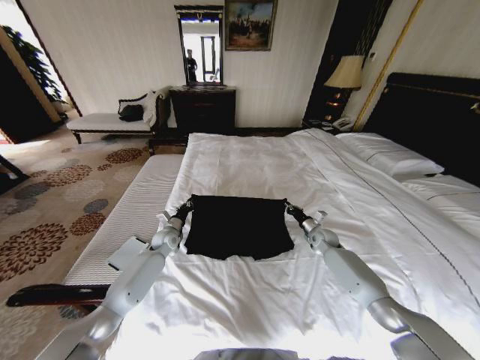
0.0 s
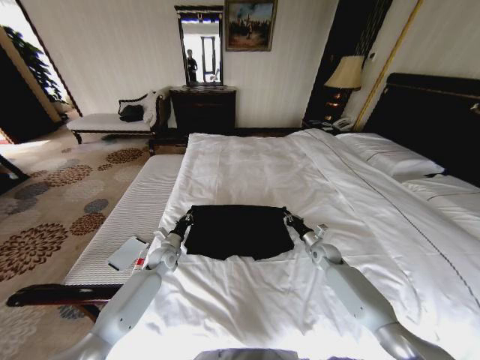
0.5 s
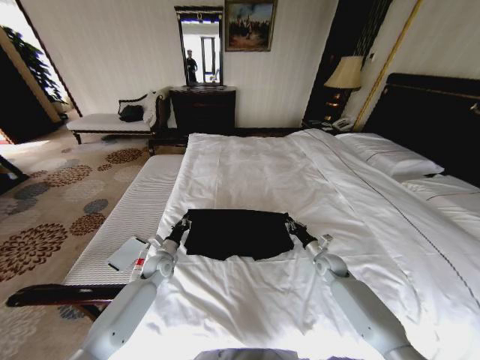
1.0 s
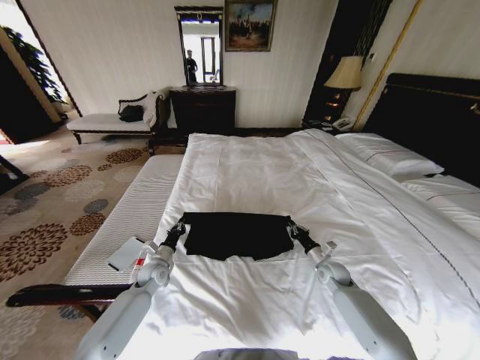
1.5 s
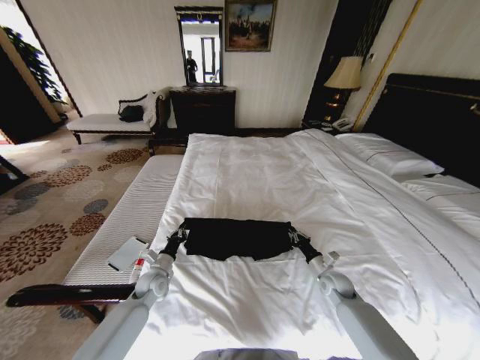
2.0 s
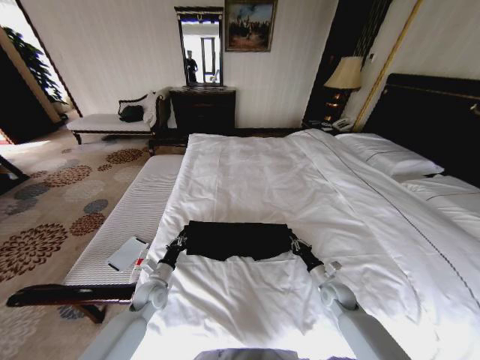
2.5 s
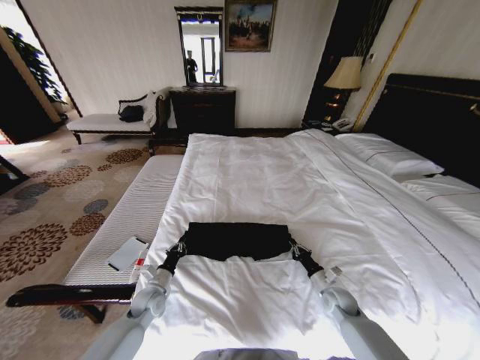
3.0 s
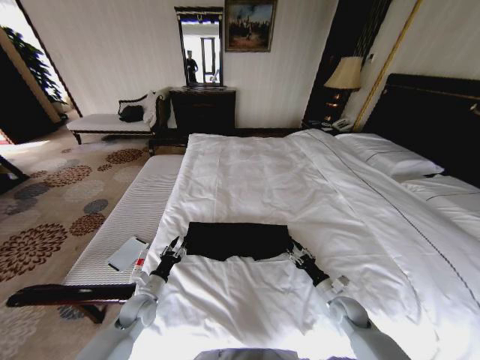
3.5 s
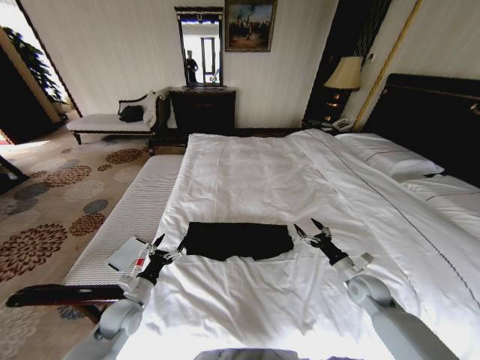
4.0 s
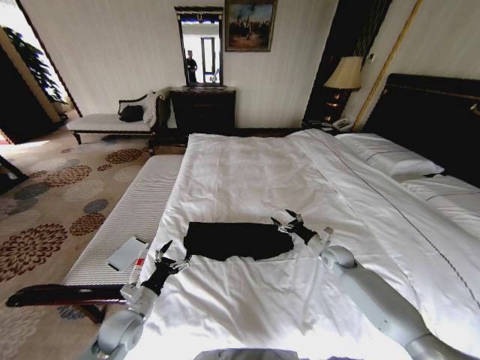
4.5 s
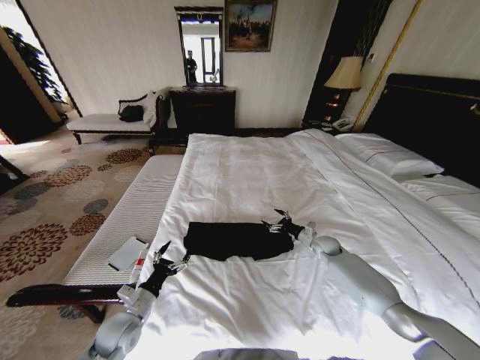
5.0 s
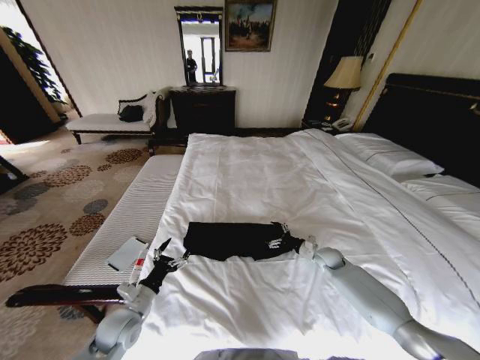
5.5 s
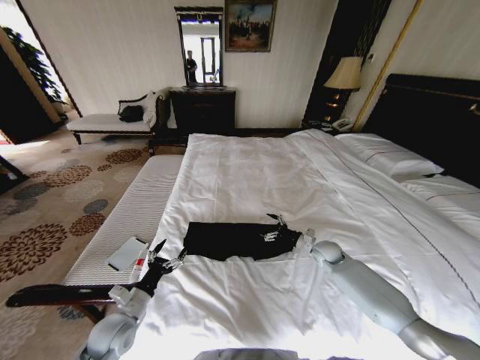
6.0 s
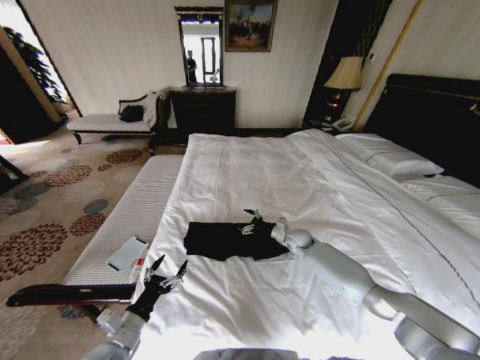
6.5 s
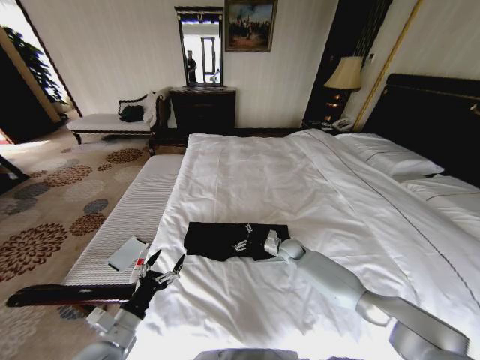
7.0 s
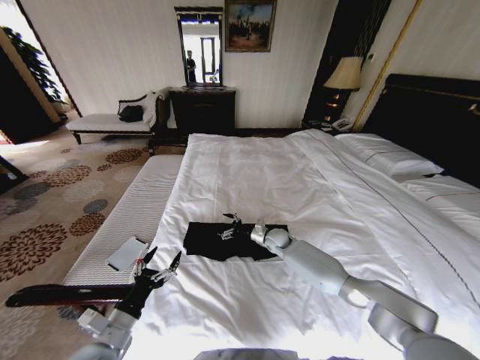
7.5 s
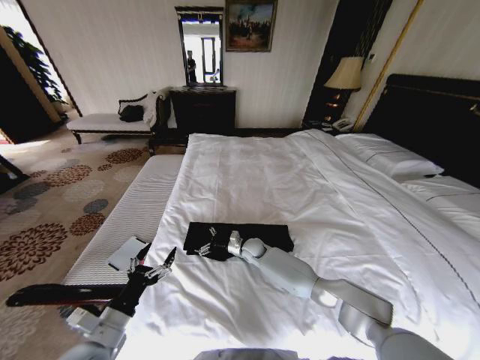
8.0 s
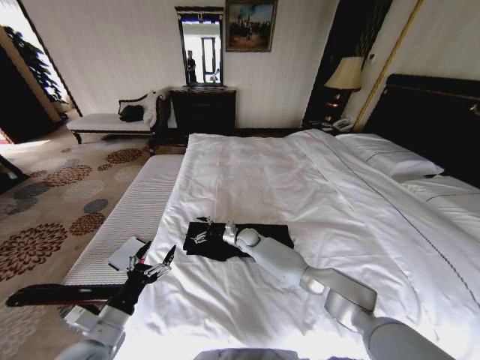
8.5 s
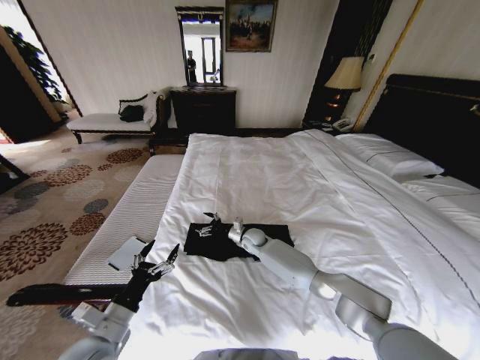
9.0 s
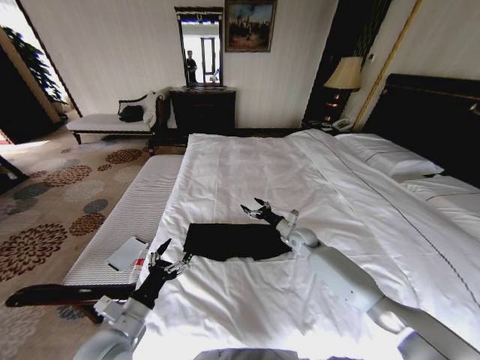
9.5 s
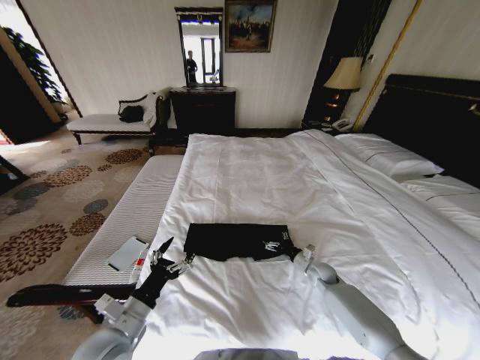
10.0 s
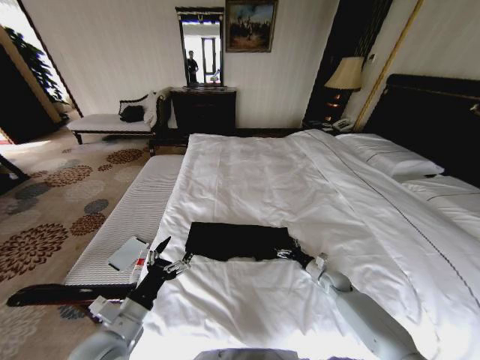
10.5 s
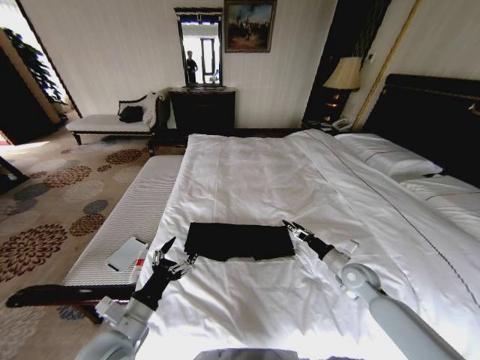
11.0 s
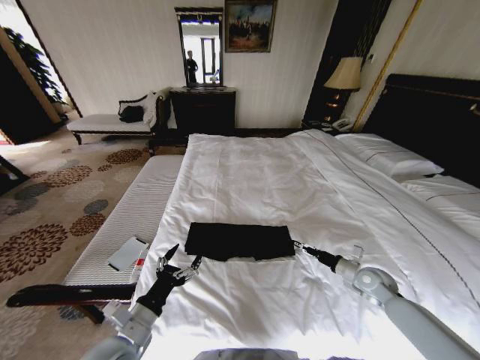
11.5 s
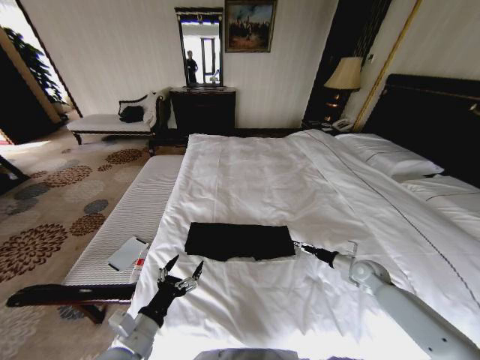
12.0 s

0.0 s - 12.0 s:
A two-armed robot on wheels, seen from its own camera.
Task of the whole recording: Fold the clothes on the bed.
0.0 s - 2.0 s: The grippers both shift backward by some 15 cm.
2.0 s - 4.0 s: The right gripper moves upward and to the right, some 10 cm, and opens its fingers, while the left gripper moves backward, some 10 cm, and opens up.
4.0 s - 6.0 s: The right gripper shifts about 15 cm forward and to the left; the left gripper shifts by approximately 5 cm.
6.0 s - 8.0 s: The right gripper shifts about 25 cm to the left; the left gripper moves upward and backward, some 10 cm.
8.0 s - 10.0 s: The right gripper shifts approximately 25 cm to the right.
10.0 s - 12.0 s: The right gripper heads to the right and upward, covering about 15 cm.

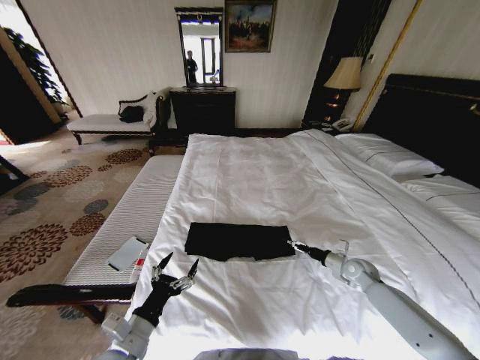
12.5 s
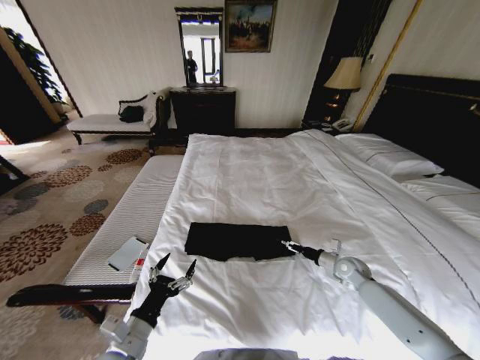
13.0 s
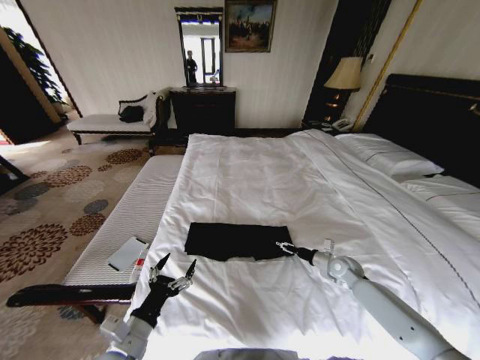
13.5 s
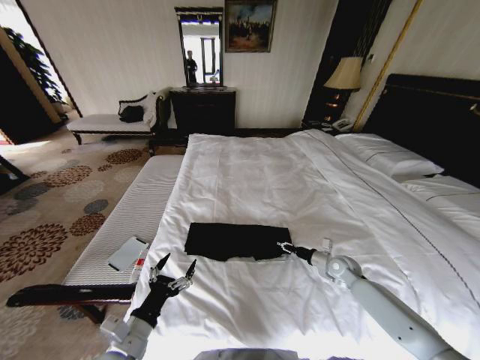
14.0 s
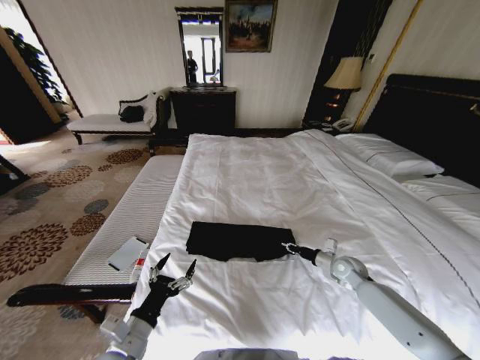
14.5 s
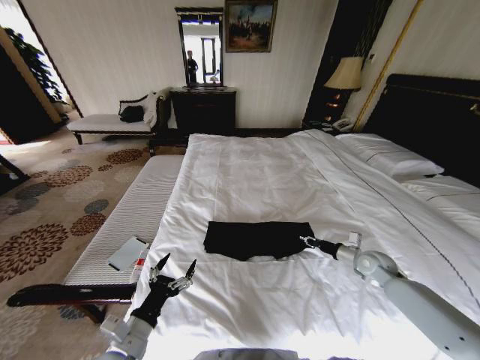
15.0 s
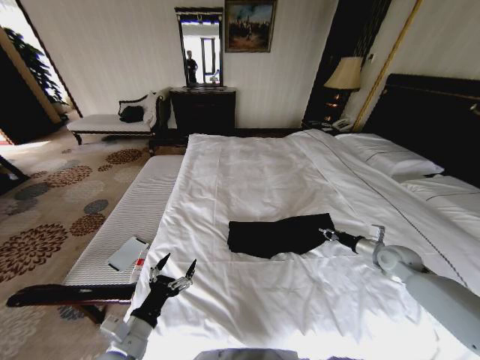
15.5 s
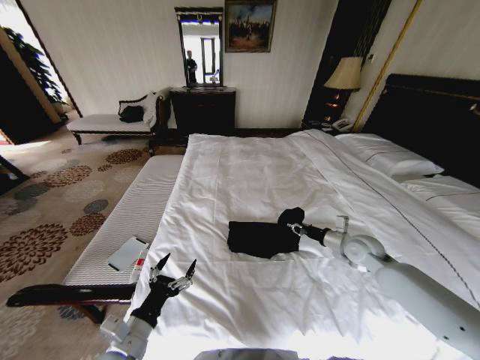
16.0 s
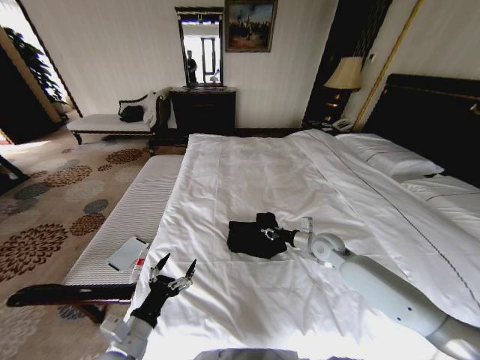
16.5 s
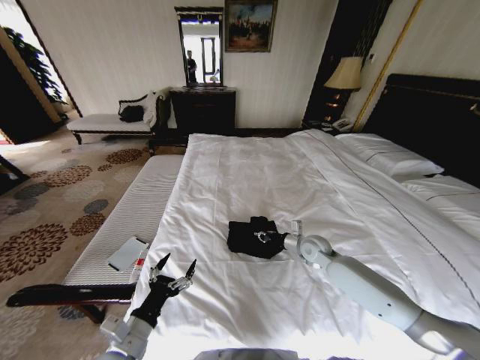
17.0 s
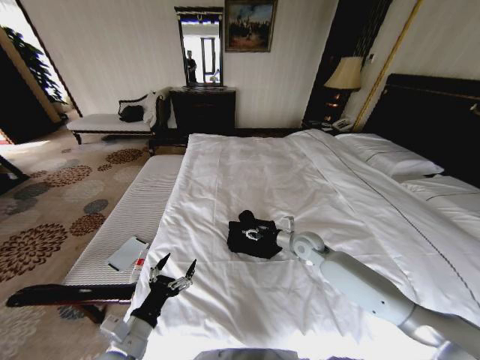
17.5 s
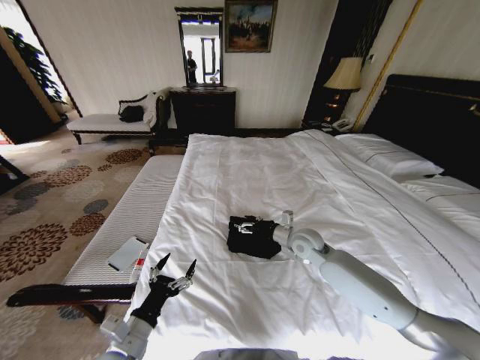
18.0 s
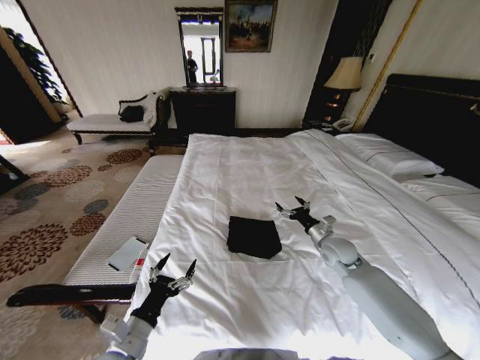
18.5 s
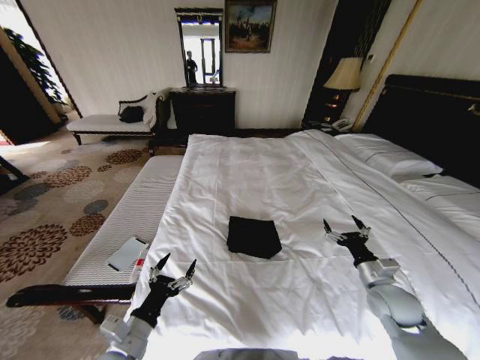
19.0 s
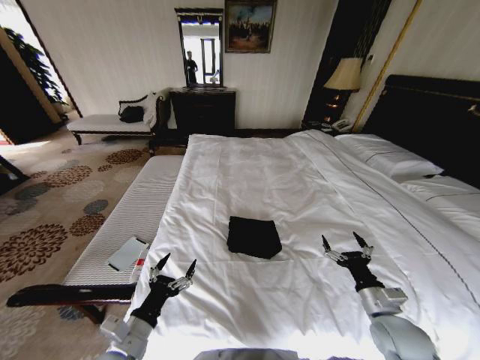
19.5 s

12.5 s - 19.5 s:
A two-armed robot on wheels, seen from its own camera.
Task of the whole recording: Fold the clothes on the bed.
12.5 s - 14.5 s: The right gripper closes up.
14.5 s - 16.0 s: The right gripper is displaced upward by approximately 10 cm.
16.0 s - 17.5 s: The right gripper travels to the left by roughly 15 cm, and opens up.
17.5 s - 19.5 s: The right gripper shifts about 25 cm backward and to the right, and opens its fingers.

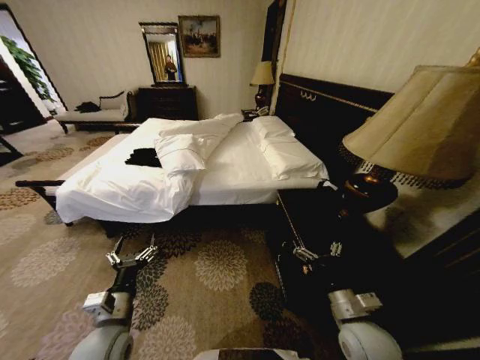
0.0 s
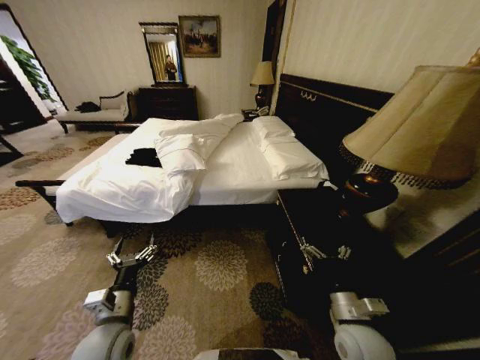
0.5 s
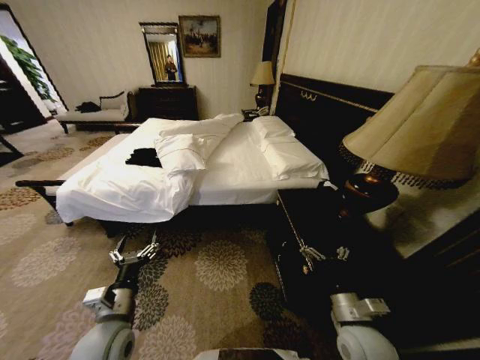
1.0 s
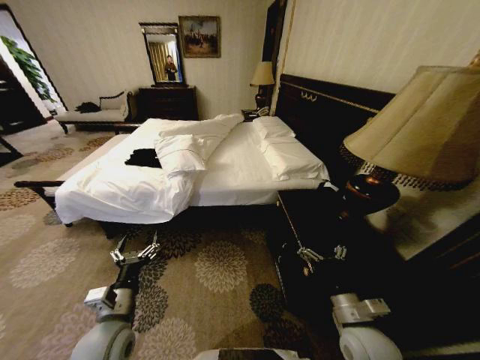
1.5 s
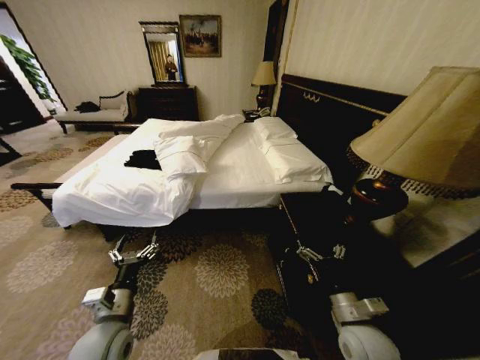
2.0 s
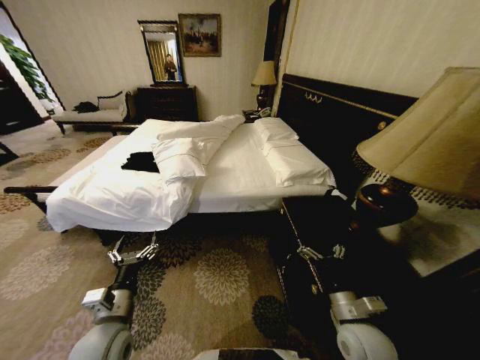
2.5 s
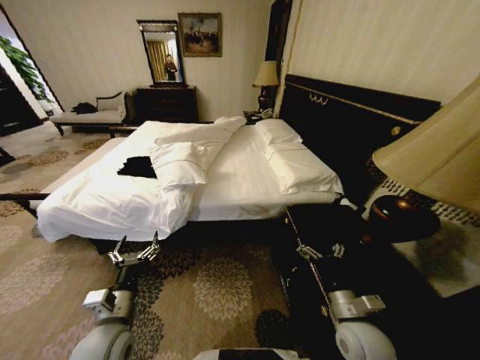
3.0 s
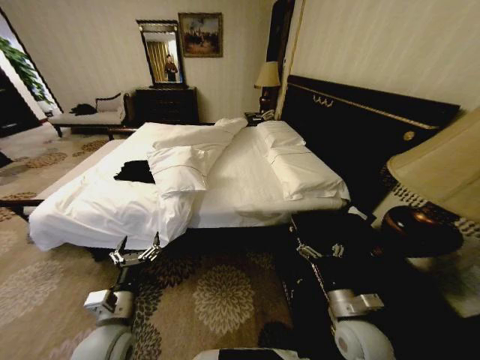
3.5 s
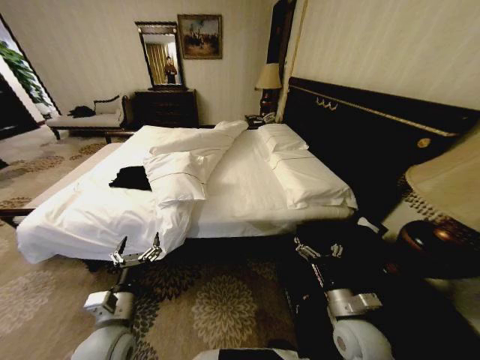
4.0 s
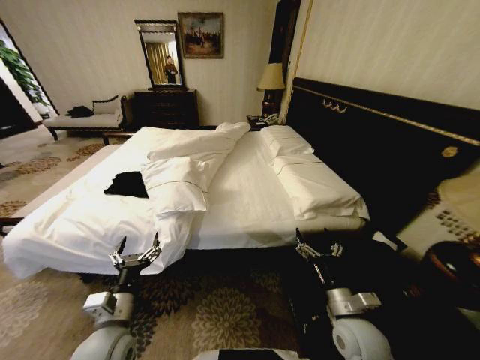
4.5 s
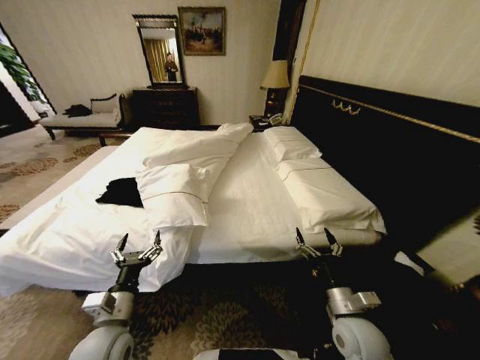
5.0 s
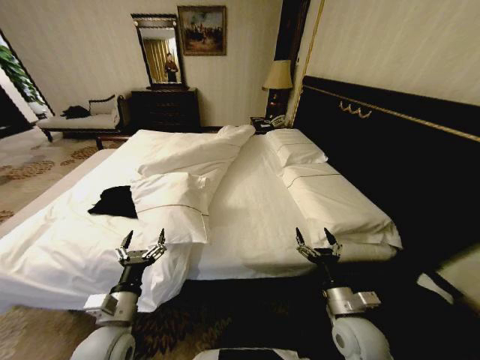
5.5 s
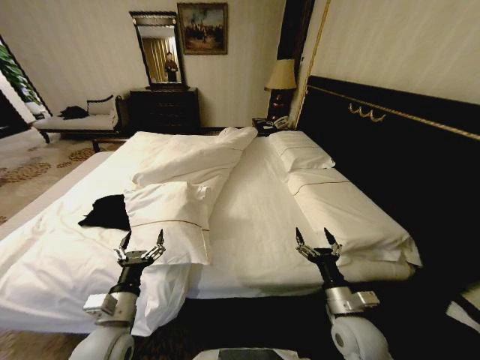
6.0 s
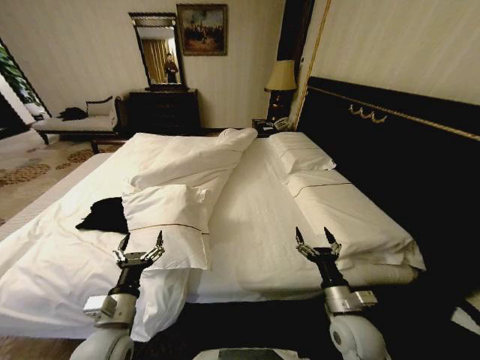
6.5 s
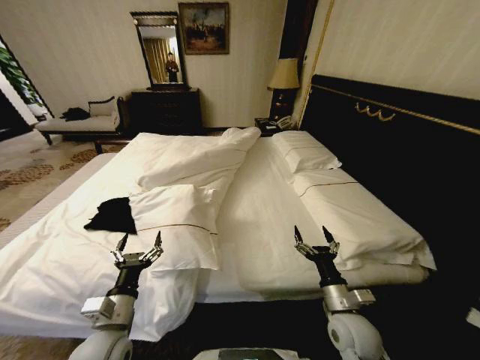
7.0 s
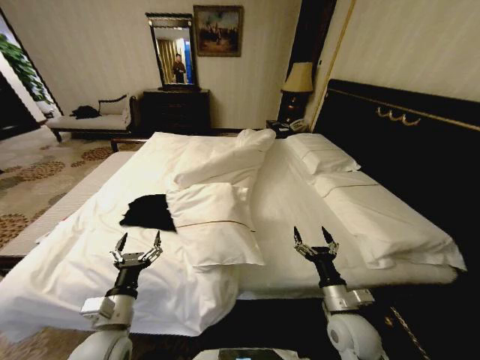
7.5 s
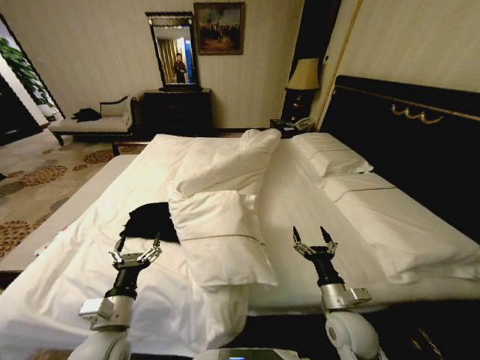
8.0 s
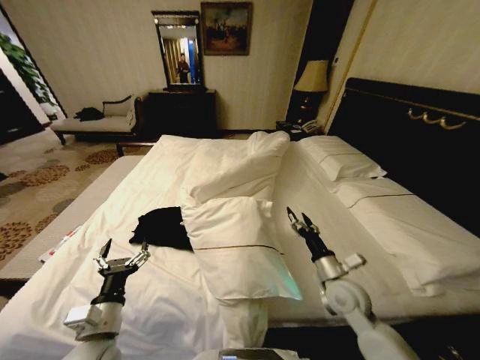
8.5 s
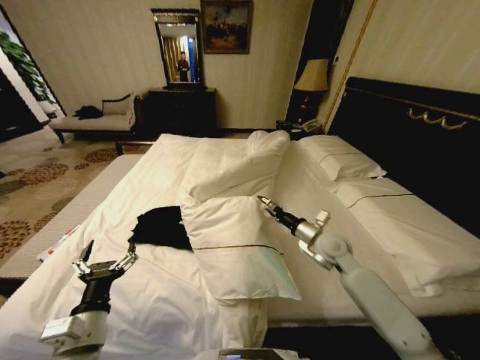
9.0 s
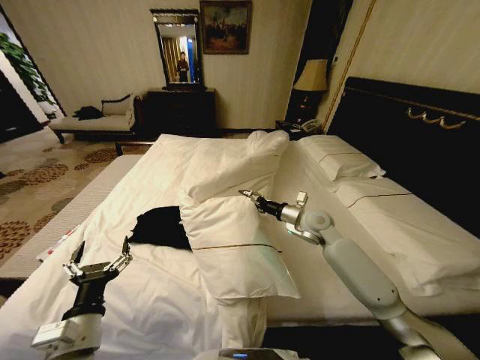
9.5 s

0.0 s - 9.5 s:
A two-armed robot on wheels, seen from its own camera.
Task of the whole recording: Fold the clothes on the bed.
7.5 s - 9.5 s: The left gripper moves some 5 cm. The right gripper is displaced forward and upward by some 25 cm.
